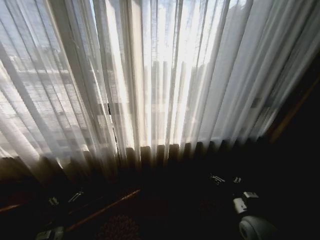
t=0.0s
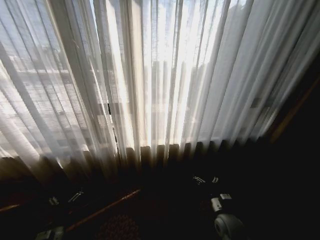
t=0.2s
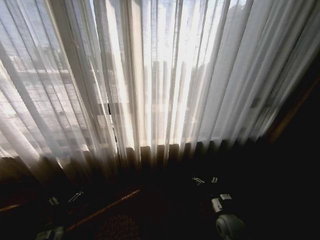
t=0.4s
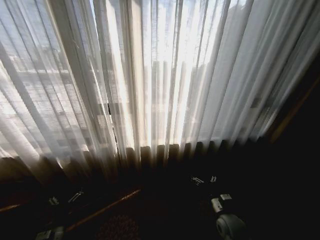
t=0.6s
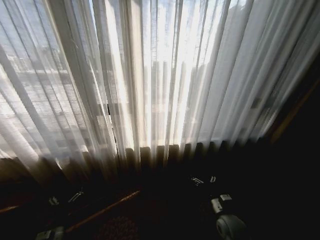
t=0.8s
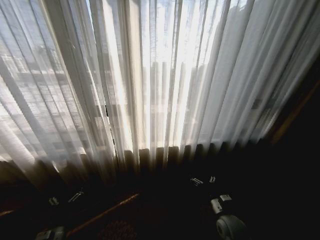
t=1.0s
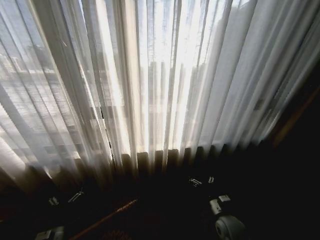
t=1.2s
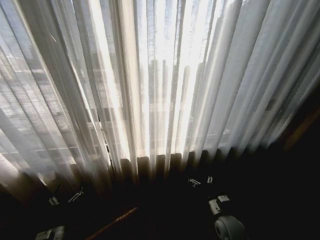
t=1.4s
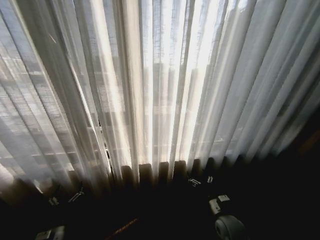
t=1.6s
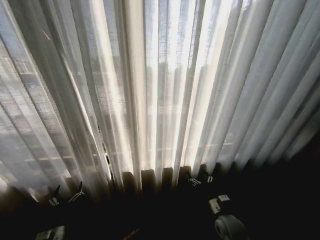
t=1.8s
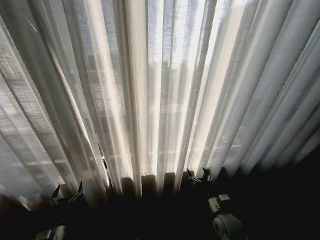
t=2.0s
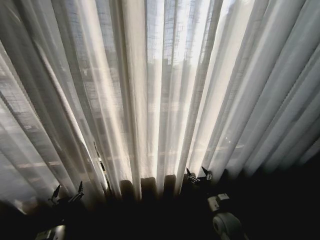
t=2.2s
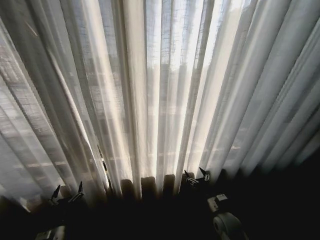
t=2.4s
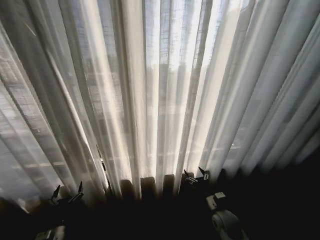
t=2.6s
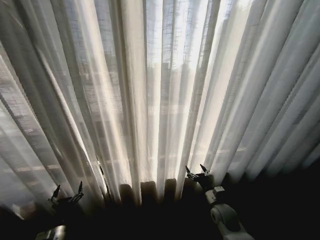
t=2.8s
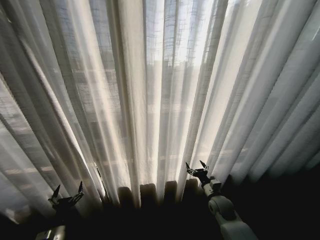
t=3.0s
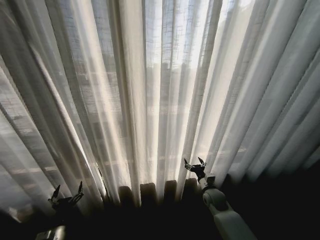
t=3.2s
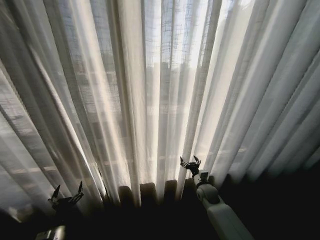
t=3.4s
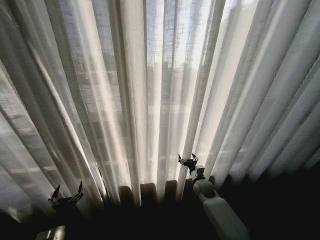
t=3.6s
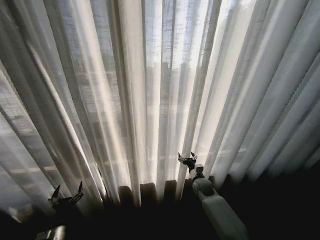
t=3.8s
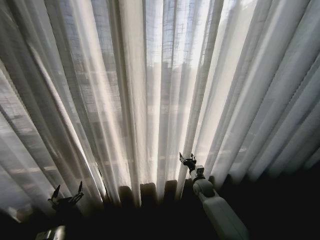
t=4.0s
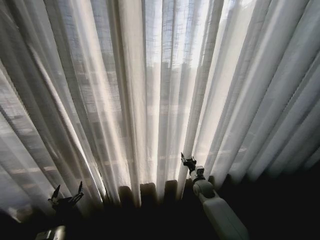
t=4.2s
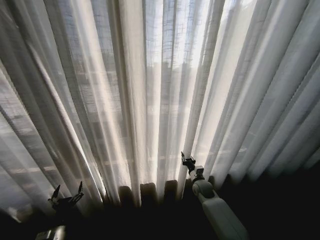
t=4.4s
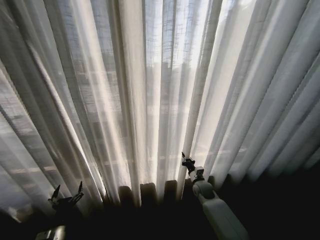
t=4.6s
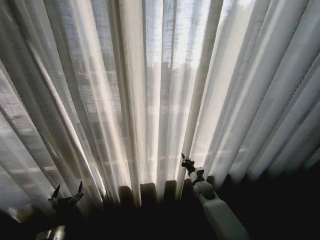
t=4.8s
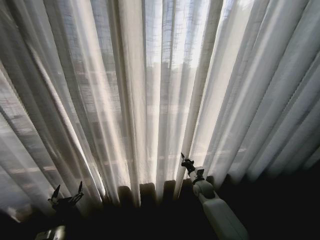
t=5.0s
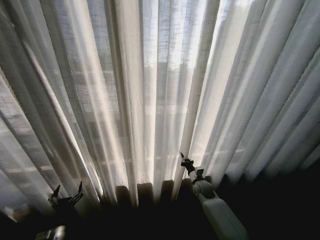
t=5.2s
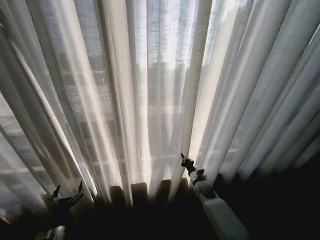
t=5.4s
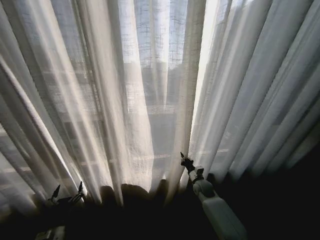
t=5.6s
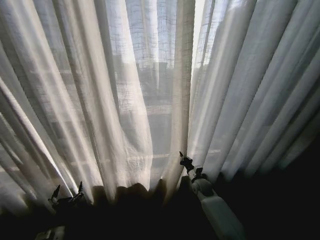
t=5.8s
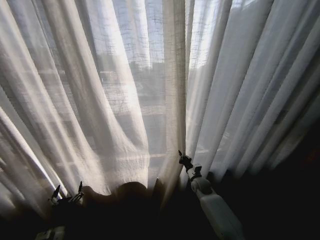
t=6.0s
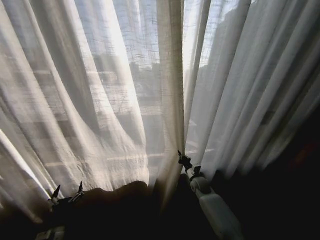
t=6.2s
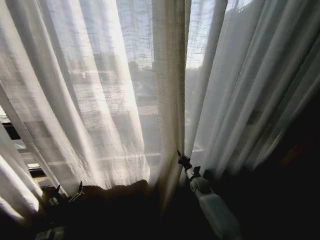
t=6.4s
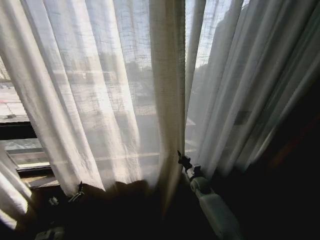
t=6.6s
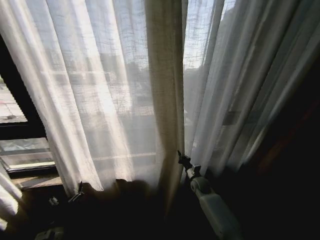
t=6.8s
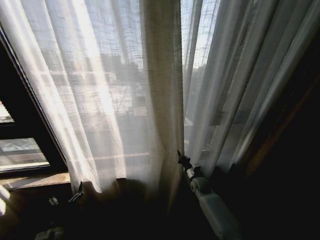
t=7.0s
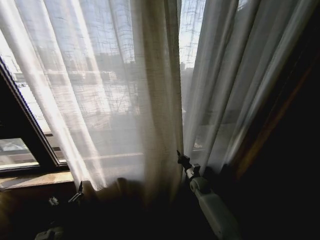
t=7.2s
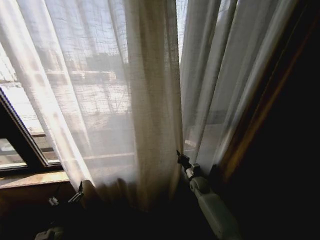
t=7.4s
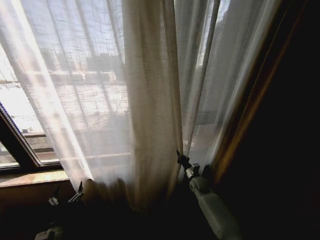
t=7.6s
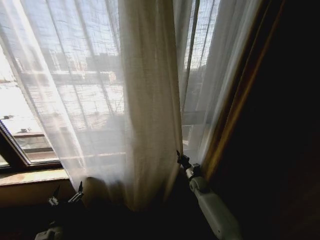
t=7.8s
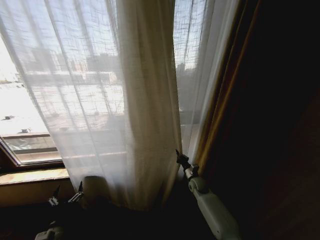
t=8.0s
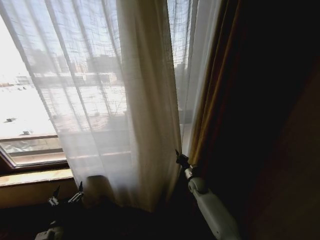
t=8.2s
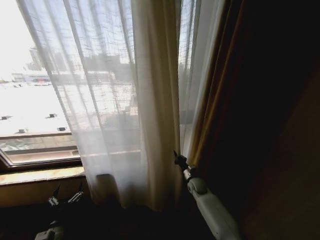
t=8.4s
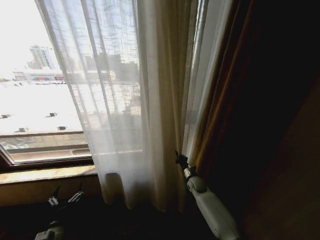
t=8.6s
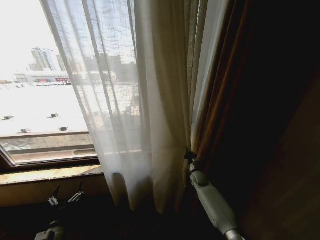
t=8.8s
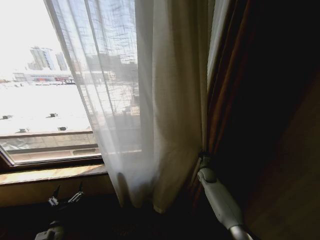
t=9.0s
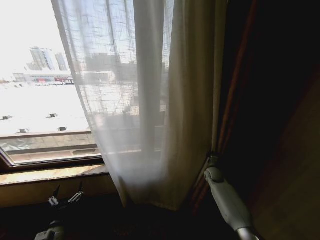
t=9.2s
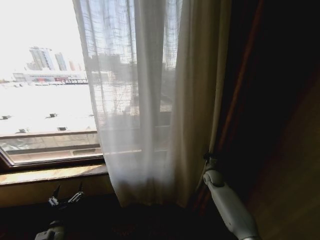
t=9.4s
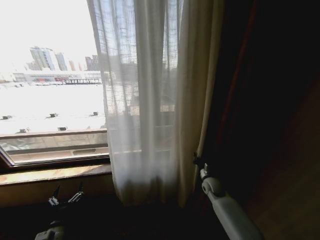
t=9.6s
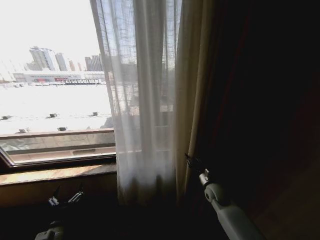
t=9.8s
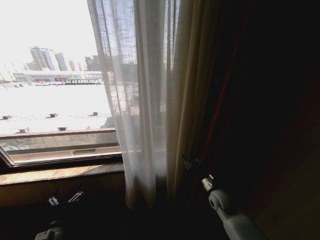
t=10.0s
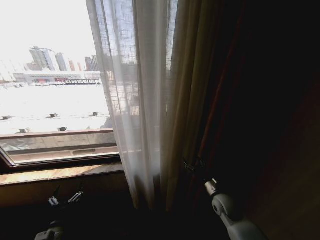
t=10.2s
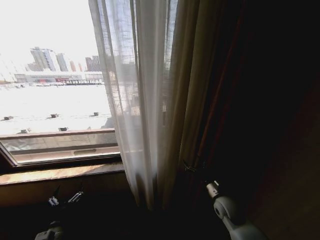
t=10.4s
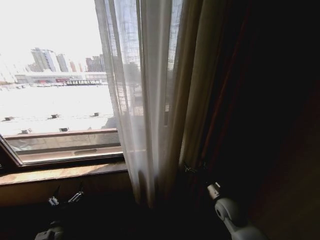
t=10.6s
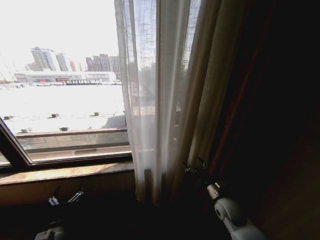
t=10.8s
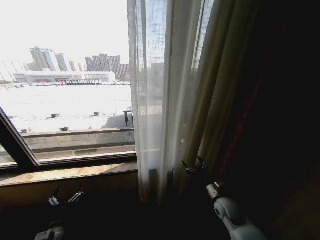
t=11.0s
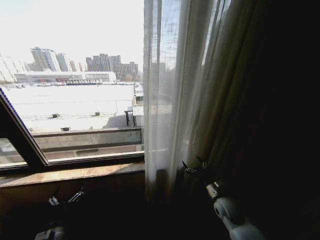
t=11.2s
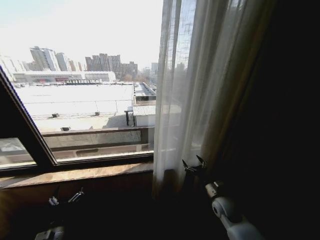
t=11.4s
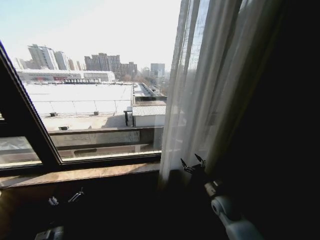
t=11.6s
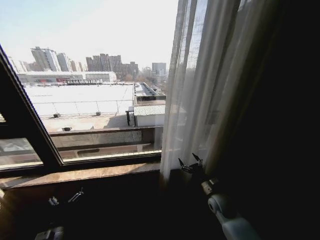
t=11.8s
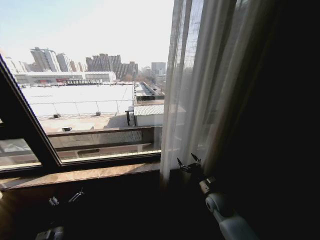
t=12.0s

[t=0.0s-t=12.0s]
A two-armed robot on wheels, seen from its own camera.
Task of the whole recording: Open the curtains by pulling them apart, changing their state from closed to fully open.
t=1.6s to t=3.0s: The right gripper travels forward by about 10 cm.
t=3.0s to t=4.4s: The right gripper goes roughly 10 cm forward, and closes up.
t=4.4s to t=6.0s: The right gripper closes its fingers.
t=7.6s to t=9.0s: The right gripper is displaced to the right by approximately 5 cm.
t=9.0s to t=10.4s: The right gripper goes some 20 cm backward, and opens its fingers.

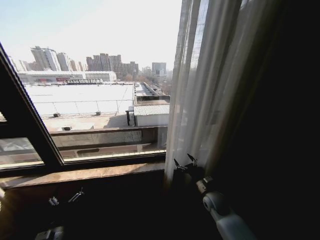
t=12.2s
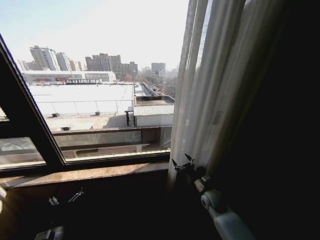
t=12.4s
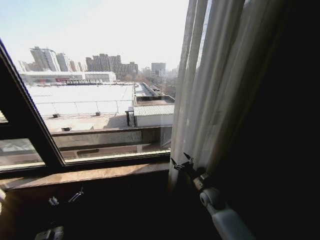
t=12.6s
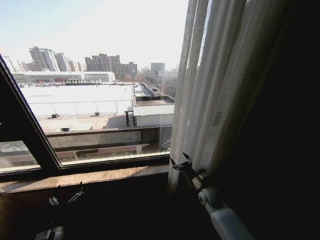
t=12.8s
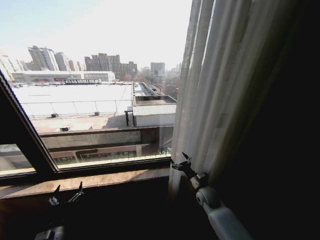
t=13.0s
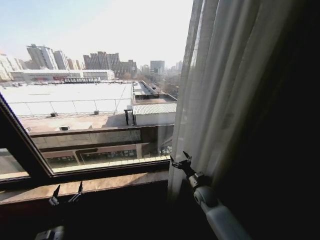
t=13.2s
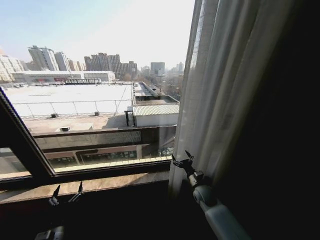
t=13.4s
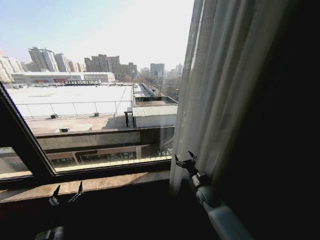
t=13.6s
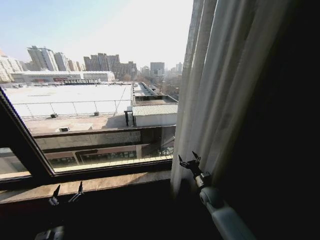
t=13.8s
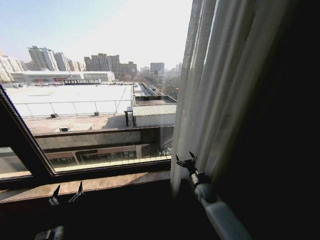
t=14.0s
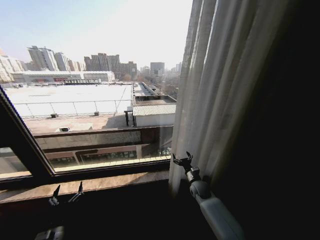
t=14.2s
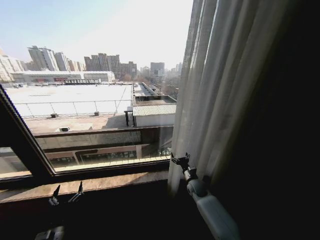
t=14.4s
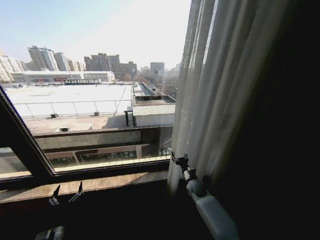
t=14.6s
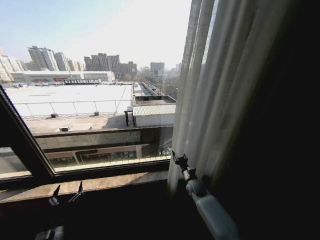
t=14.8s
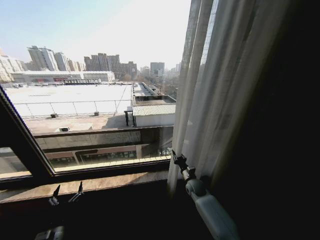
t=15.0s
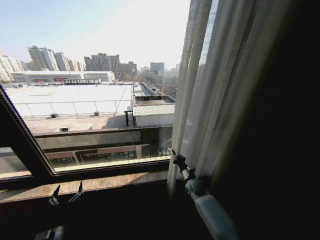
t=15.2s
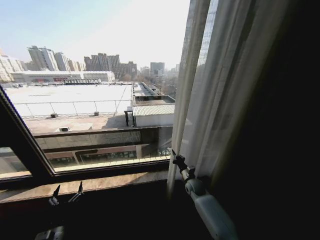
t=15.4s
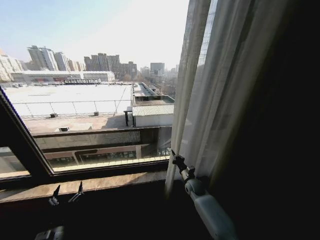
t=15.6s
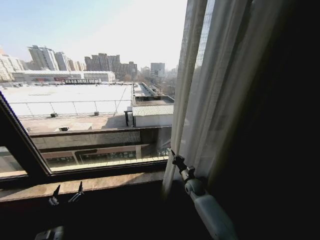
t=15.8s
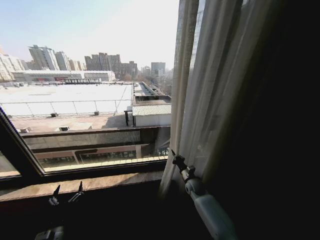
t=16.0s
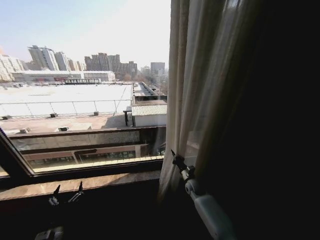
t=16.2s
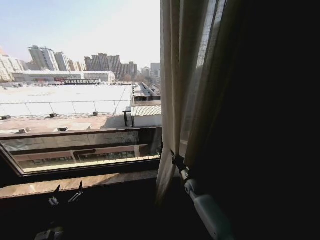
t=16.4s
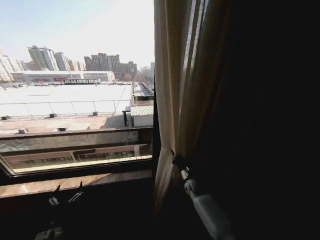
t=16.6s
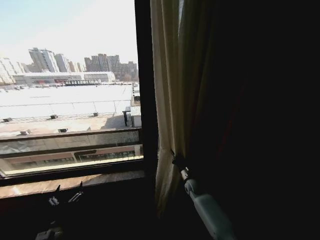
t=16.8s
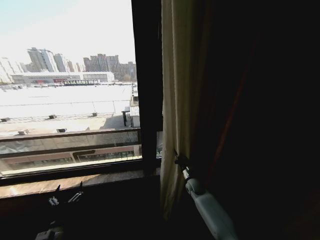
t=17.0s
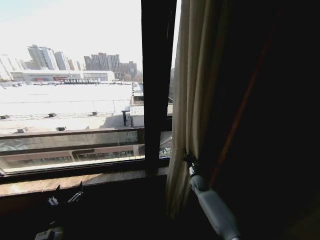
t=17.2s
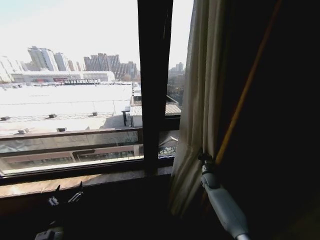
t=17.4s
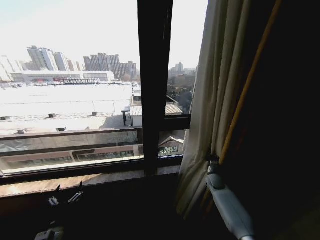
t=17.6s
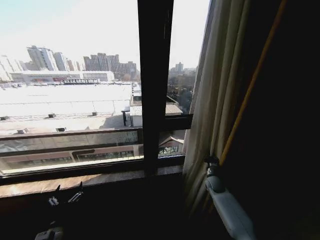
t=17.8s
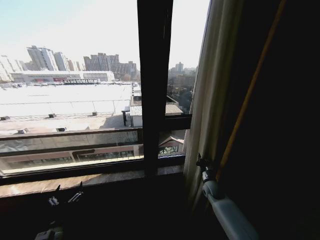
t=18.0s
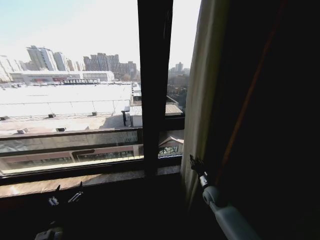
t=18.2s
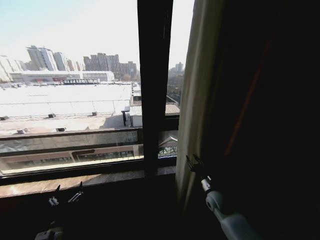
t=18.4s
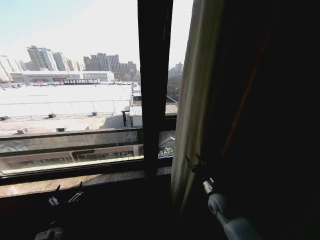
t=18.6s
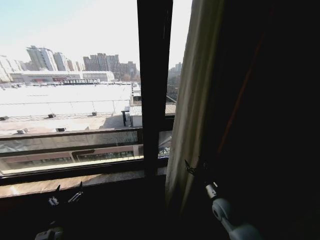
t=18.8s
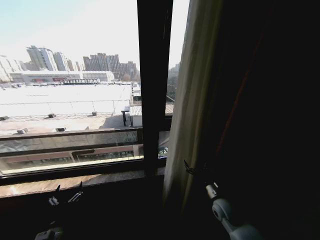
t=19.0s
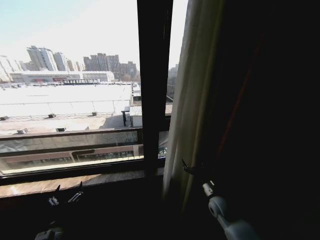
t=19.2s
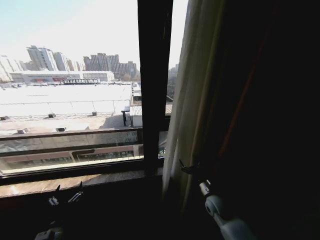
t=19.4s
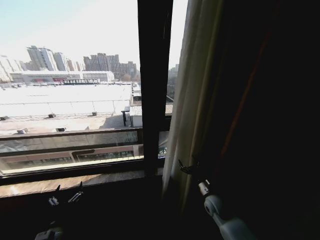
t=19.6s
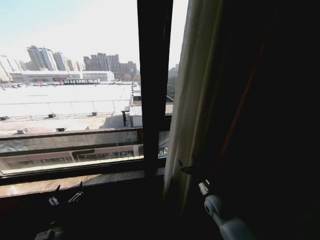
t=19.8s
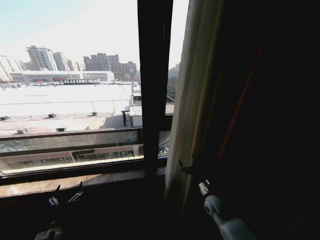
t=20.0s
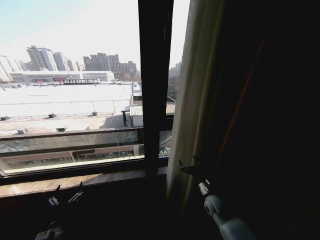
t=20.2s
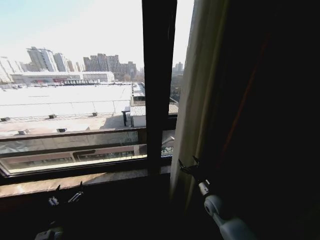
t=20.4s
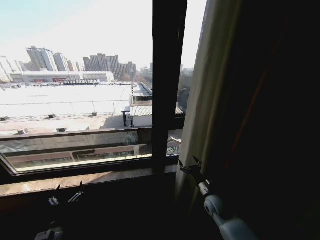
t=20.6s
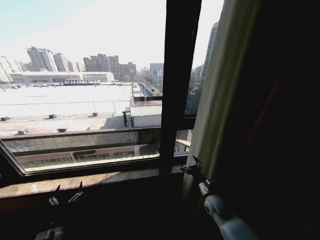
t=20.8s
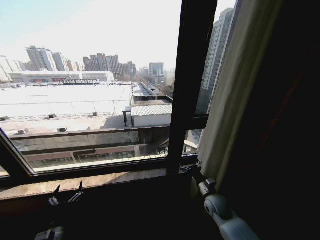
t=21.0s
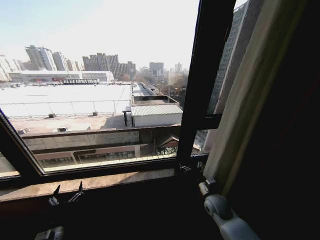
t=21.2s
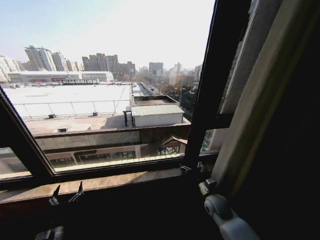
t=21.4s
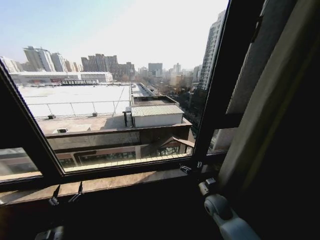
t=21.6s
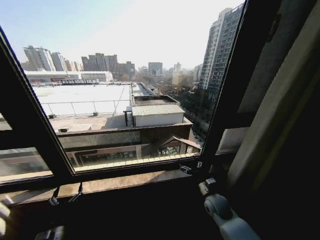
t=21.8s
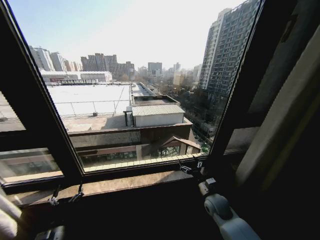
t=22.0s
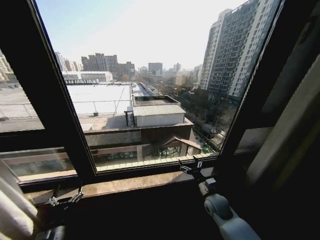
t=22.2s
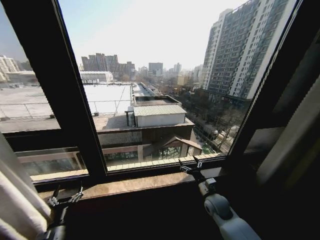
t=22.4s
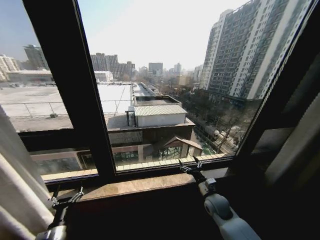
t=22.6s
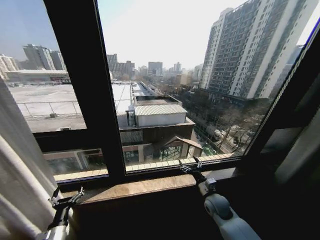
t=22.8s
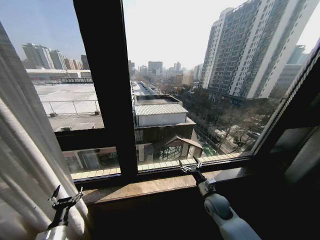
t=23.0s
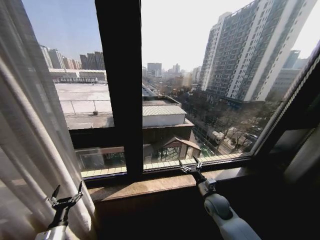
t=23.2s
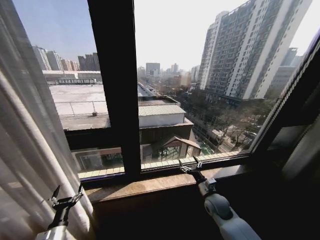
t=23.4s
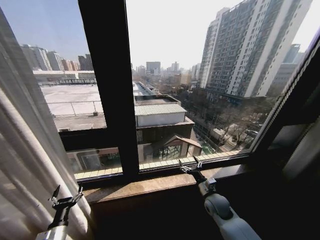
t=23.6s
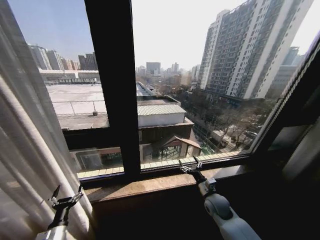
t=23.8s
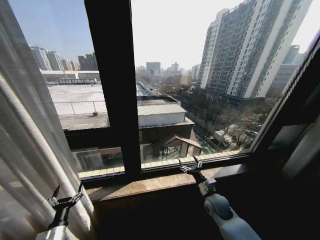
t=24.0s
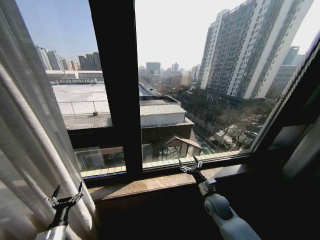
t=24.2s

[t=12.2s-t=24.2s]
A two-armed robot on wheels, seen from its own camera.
Task of the whole recording: Open the curtains by pulling them apart, changing their state from closed to fully open.
t=13.8s to t=15.2s: The right gripper heads forward and to the left, covering about 10 cm, and closes.
t=16.6s to t=18.2s: The right gripper moves to the right and backward, some 10 cm.
t=18.2s to t=19.8s: The right gripper travels backward by some 5 cm, and opens up.
